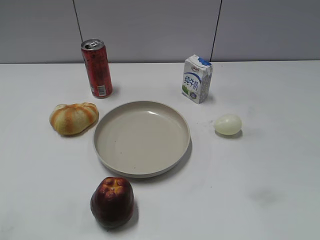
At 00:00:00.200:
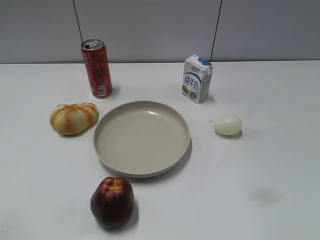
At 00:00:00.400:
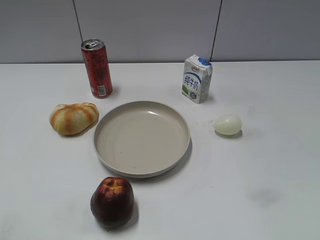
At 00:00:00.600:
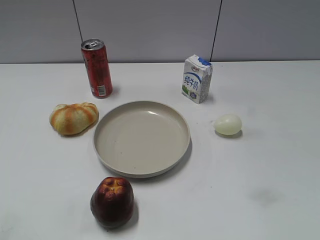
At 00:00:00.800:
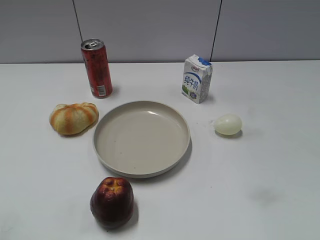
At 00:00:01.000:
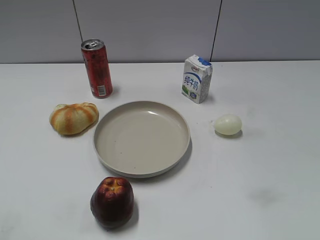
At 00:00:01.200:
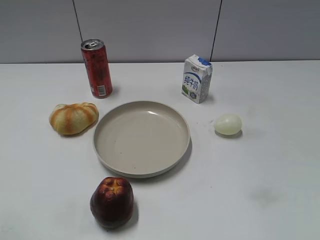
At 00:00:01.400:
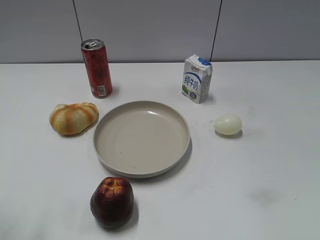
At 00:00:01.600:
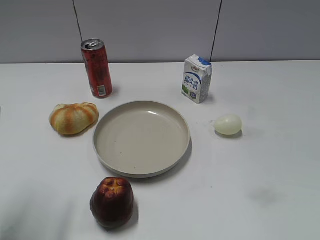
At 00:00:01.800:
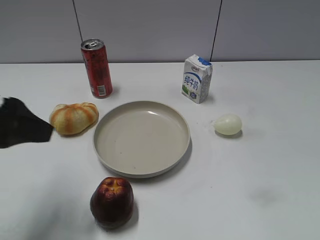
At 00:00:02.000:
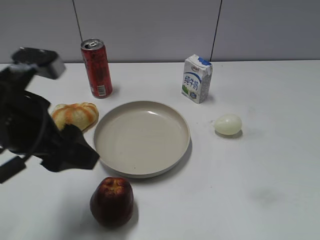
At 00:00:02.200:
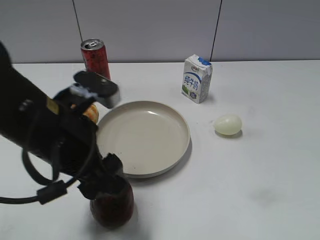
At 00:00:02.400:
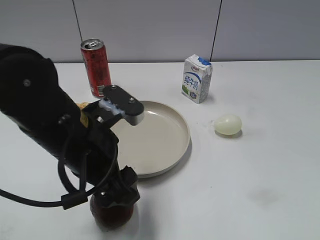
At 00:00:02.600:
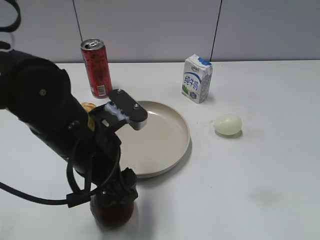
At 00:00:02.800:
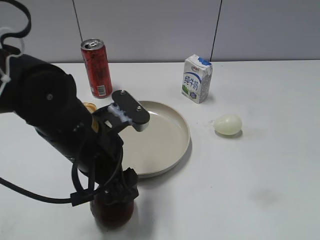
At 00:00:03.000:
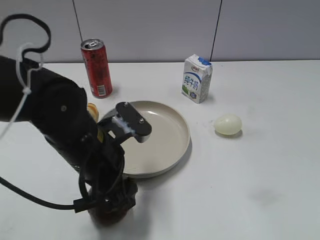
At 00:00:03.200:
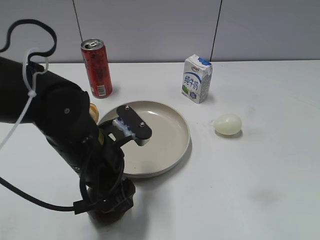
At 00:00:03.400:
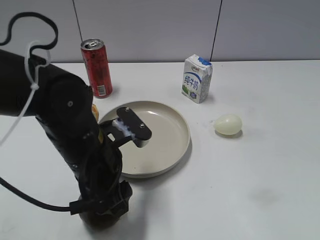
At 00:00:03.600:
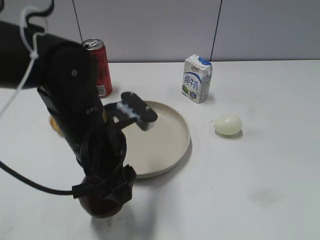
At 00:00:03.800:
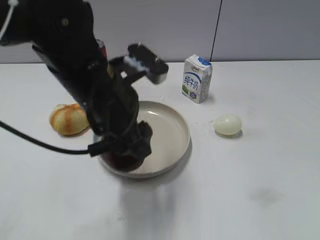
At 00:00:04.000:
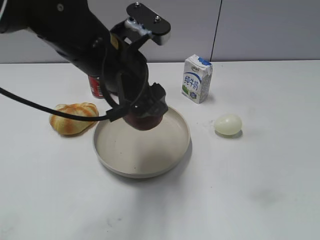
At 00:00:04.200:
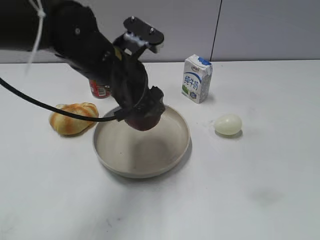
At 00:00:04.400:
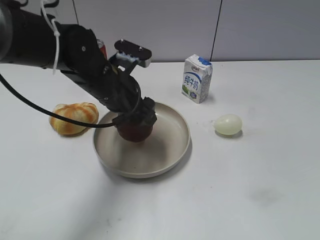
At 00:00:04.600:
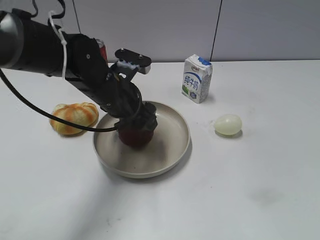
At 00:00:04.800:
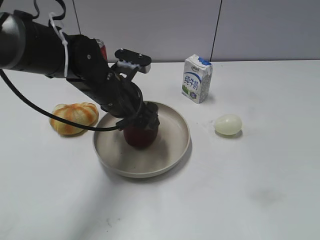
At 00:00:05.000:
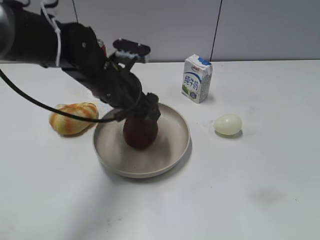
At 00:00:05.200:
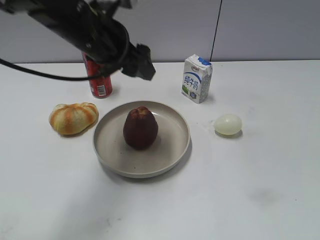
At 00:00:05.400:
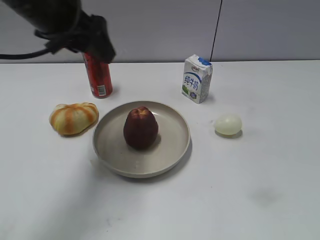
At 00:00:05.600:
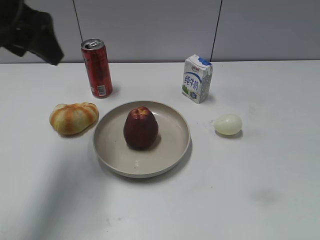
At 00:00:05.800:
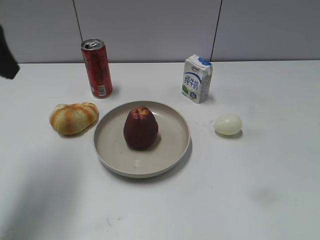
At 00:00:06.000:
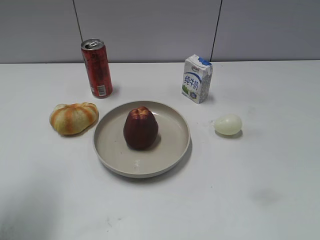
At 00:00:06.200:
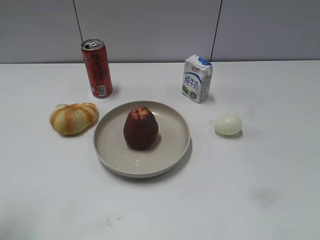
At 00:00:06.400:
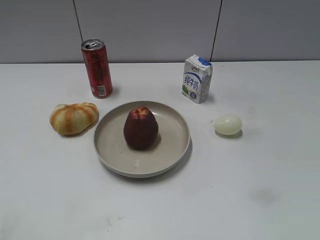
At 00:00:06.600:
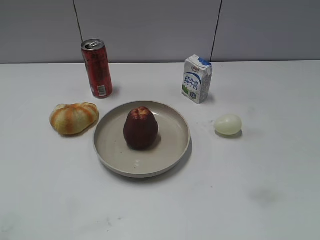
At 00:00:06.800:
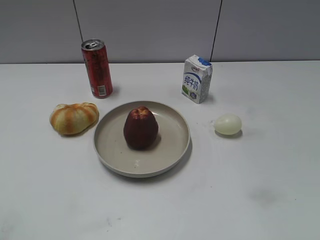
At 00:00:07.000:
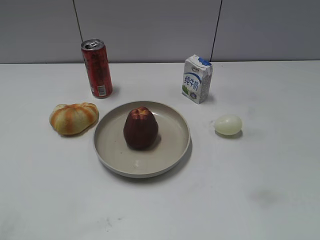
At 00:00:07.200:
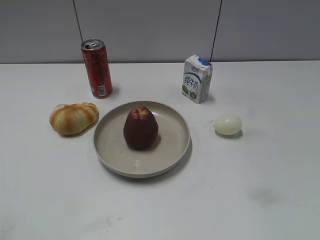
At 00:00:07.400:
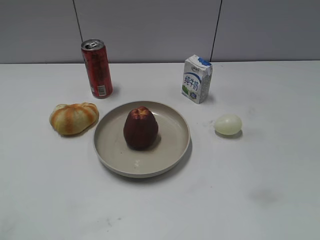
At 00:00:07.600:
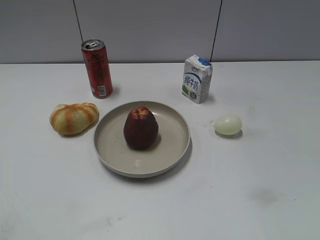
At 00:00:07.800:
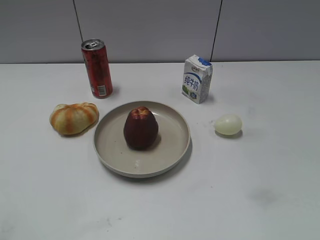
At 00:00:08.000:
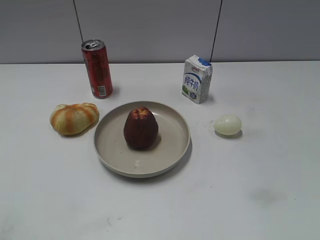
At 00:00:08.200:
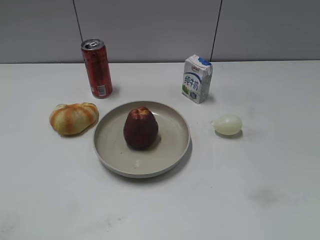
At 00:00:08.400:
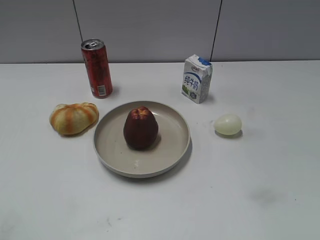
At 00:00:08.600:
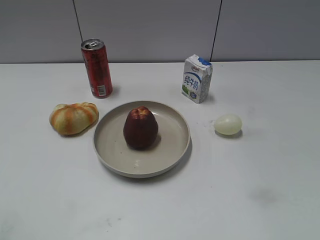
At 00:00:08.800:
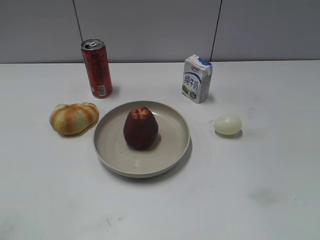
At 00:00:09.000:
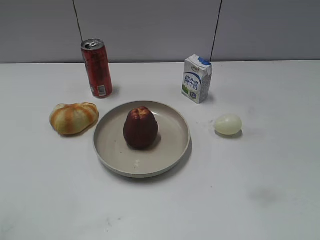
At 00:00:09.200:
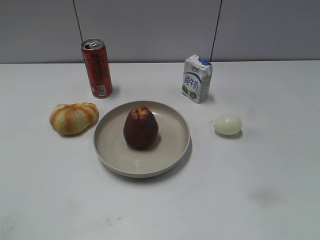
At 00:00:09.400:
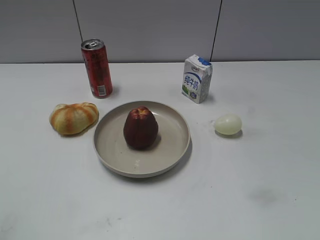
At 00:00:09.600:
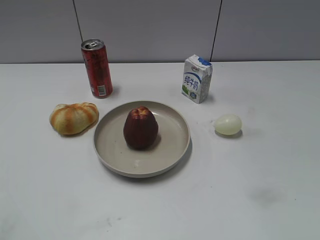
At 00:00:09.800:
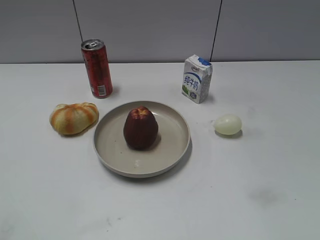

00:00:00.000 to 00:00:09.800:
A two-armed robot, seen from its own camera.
Step, 00:00:00.000 to 00:00:03.200: Grasp the apple with left gripper.
Step, 00:00:03.400 to 00:00:05.000: Place the apple on the plate with left gripper.
00:00:01.400 to 00:00:02.800: The left gripper goes about 30 cm to the right, downward and forward.
00:00:02.800 to 00:00:04.200: The left gripper goes approximately 10 cm forward and upward, and closes up.
00:00:04.200 to 00:00:05.600: The left gripper moves to the left and upward, roughly 15 cm.
00:00:05.600 to 00:00:07.000: The left gripper moves backward and to the left, some 35 cm, and closes up.
